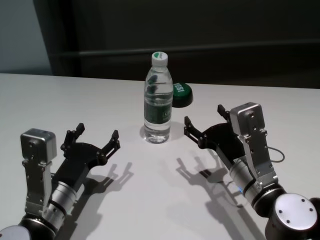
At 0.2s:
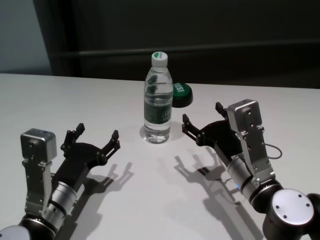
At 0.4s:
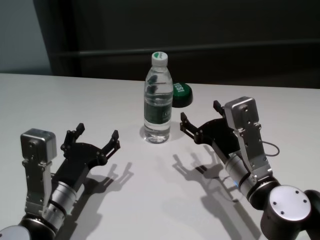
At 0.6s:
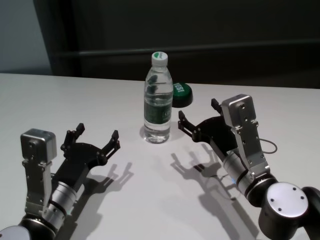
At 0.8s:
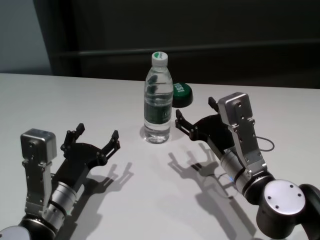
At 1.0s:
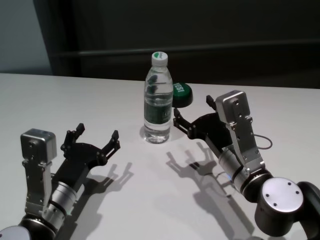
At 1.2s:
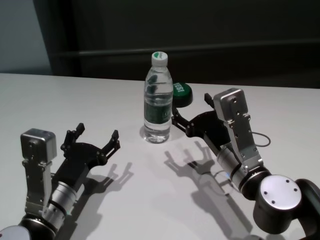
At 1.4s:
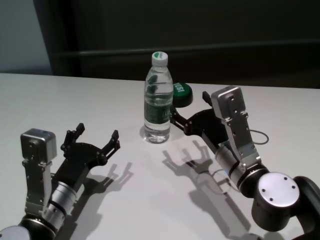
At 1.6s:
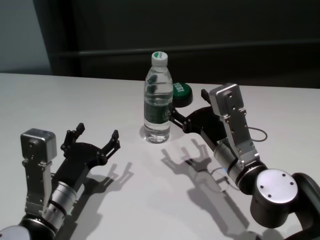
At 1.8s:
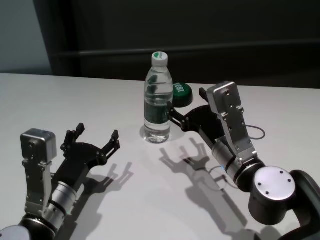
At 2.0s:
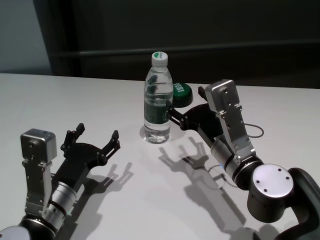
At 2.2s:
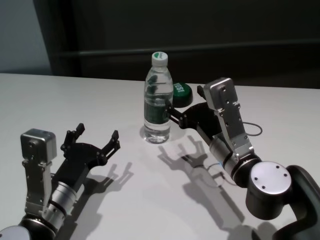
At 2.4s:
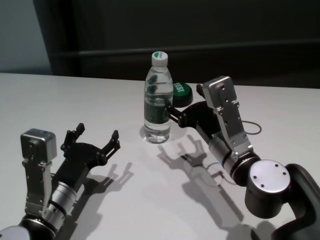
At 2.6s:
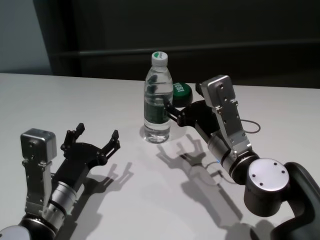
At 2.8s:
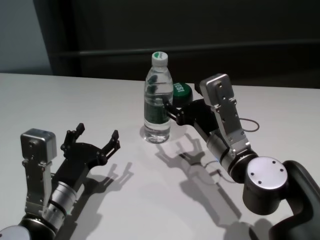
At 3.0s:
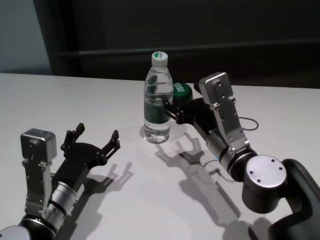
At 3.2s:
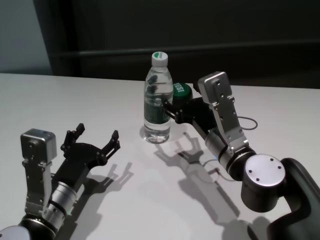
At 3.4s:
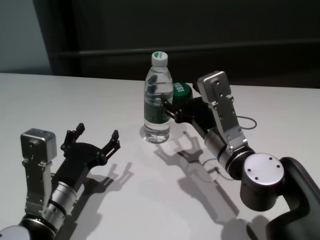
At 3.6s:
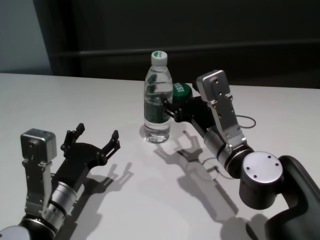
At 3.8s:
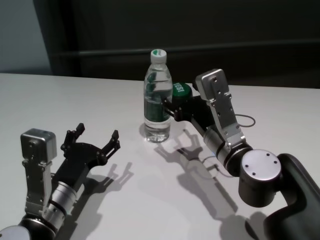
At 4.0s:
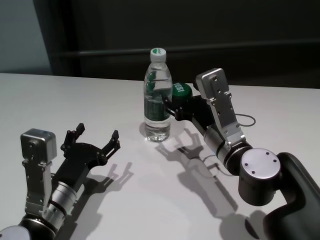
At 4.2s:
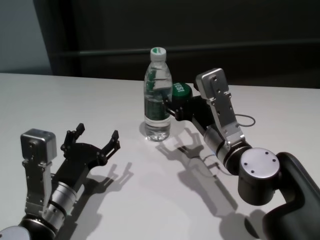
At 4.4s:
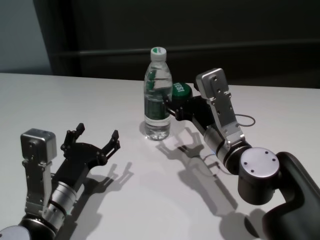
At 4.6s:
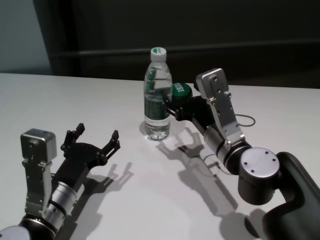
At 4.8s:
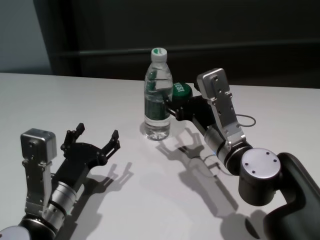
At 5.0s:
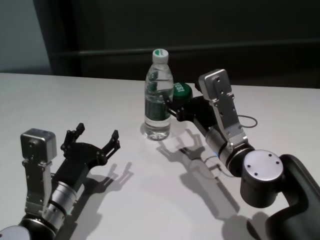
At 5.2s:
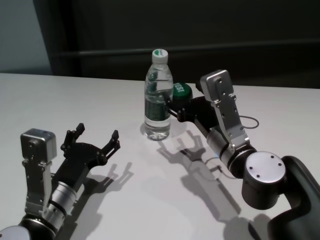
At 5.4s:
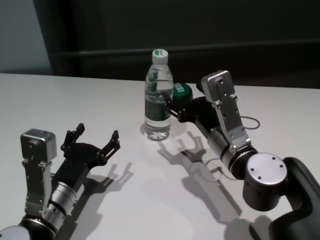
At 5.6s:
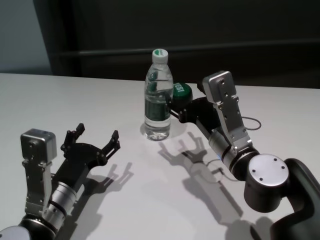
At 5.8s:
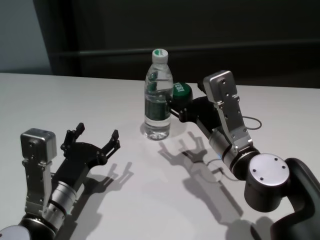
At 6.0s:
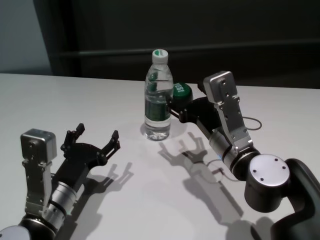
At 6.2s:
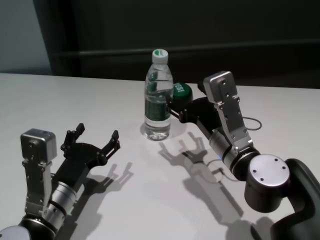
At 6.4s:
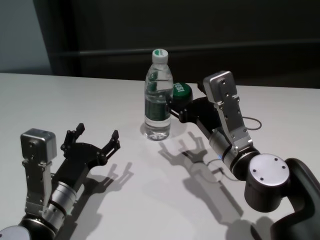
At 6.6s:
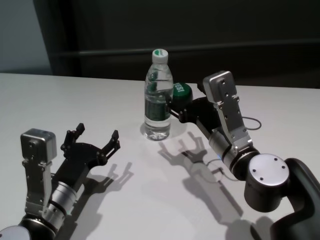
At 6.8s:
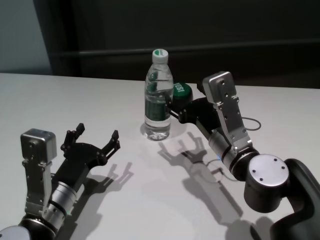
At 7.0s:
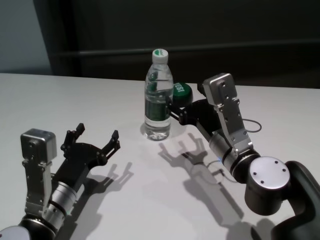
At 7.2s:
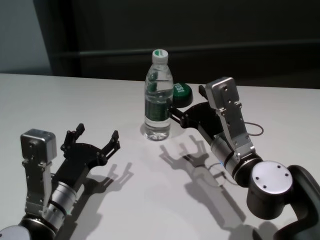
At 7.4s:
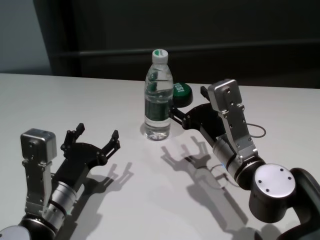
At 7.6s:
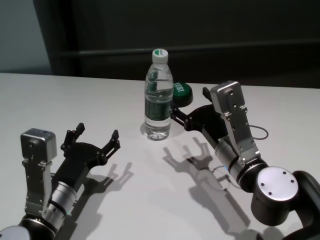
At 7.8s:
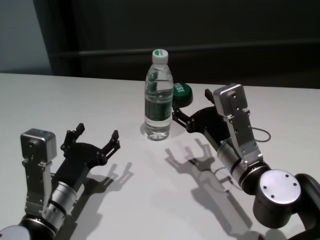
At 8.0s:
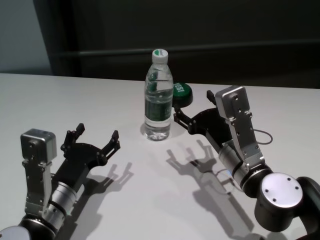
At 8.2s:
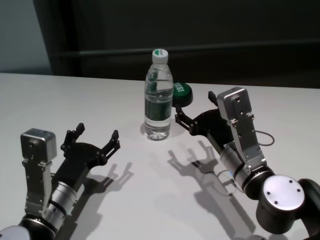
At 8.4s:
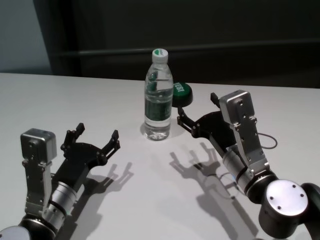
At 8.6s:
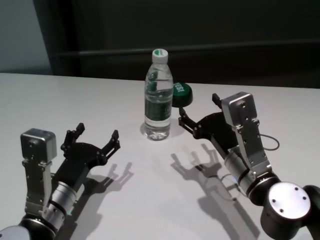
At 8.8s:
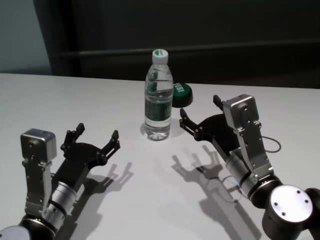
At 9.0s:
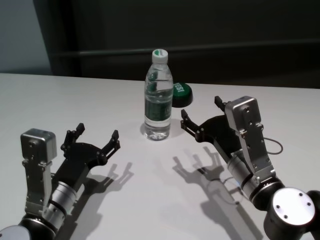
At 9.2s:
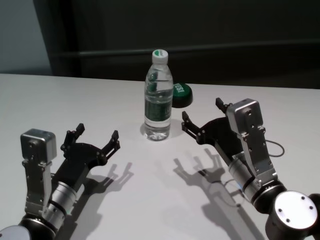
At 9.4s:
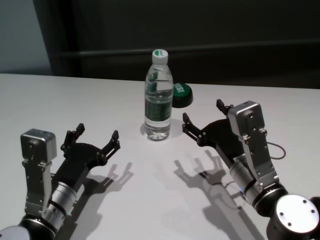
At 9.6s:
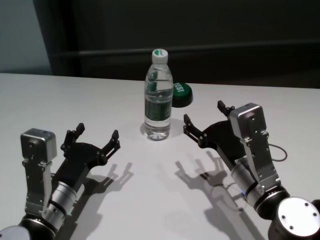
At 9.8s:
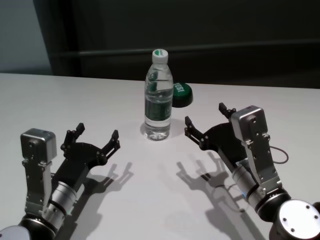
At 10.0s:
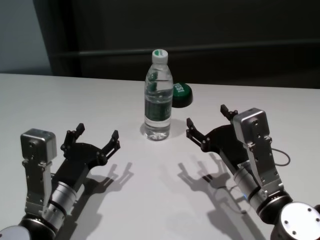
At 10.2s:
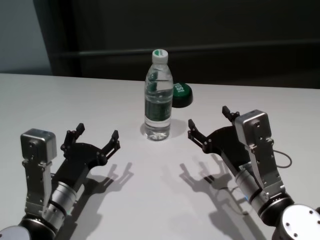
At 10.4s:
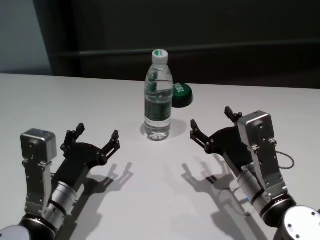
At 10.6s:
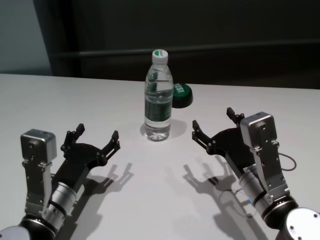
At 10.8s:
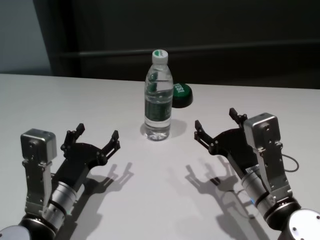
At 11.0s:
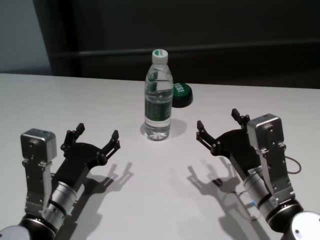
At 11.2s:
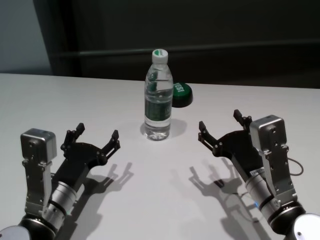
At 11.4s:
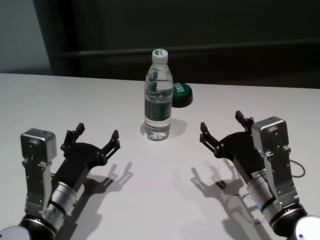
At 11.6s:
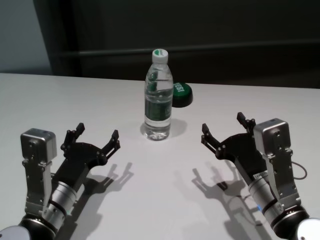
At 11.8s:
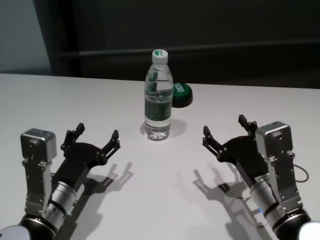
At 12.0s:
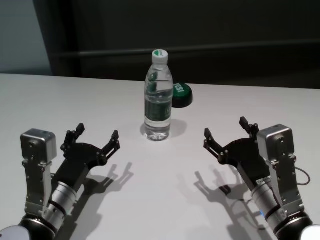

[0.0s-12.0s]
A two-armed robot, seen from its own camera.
Task of the whole recording: return to a safe position after touching an obstacle with your arm on the white table.
Step, 0.0s to 8.2s: Touch the bottle with right gripper.
